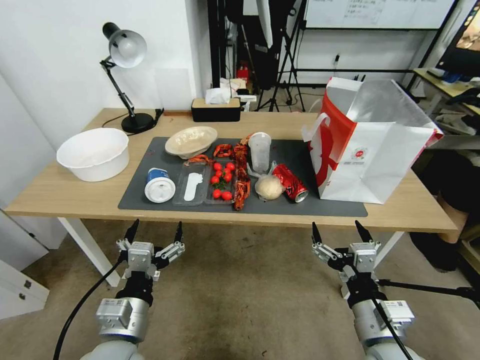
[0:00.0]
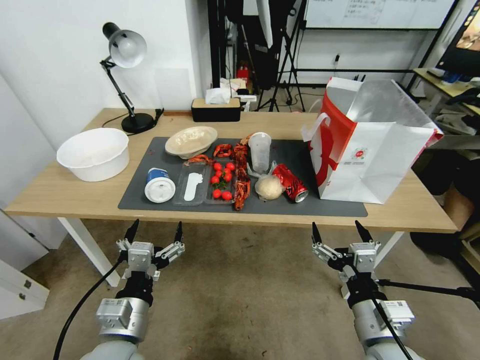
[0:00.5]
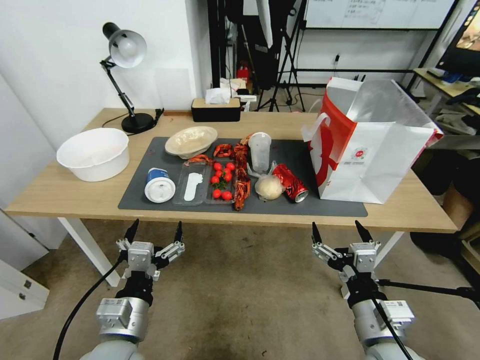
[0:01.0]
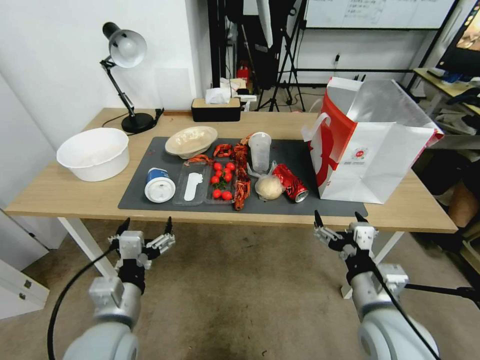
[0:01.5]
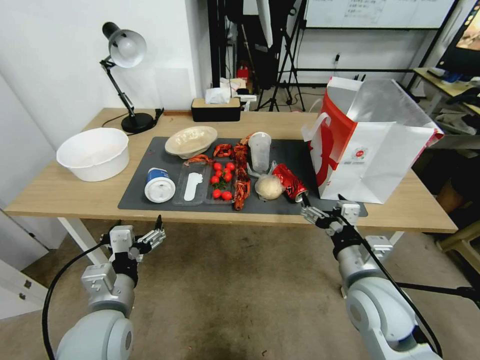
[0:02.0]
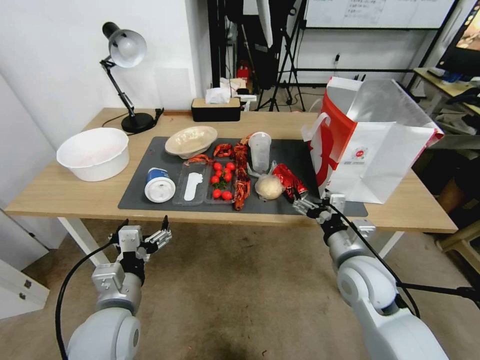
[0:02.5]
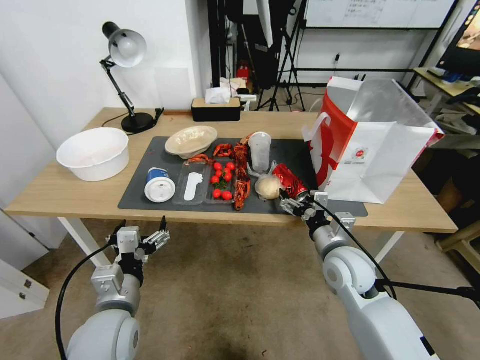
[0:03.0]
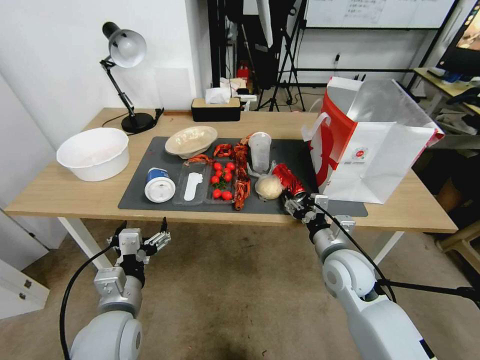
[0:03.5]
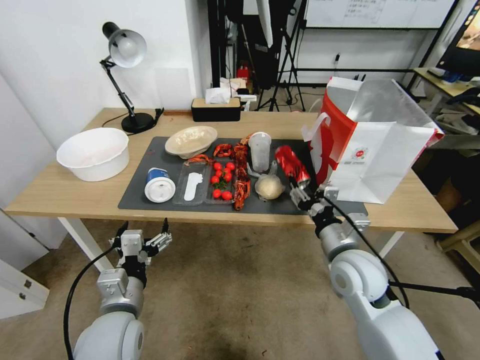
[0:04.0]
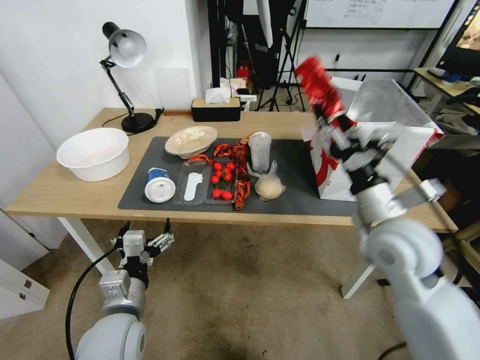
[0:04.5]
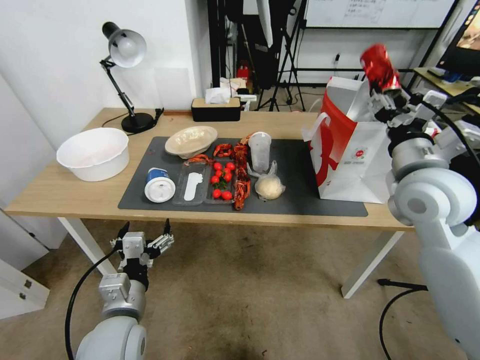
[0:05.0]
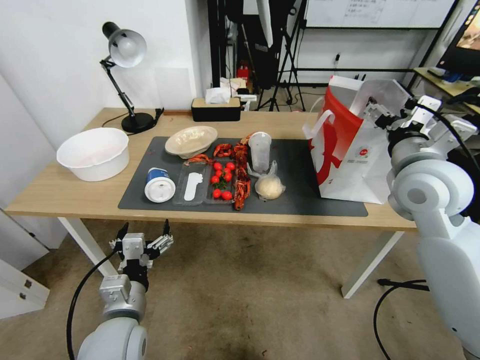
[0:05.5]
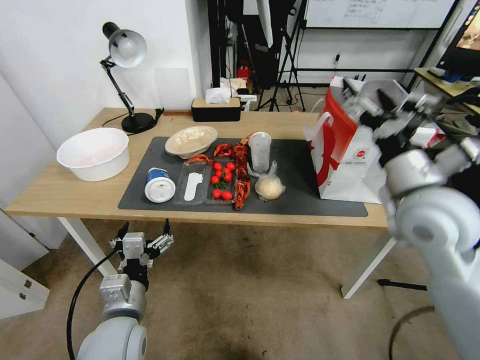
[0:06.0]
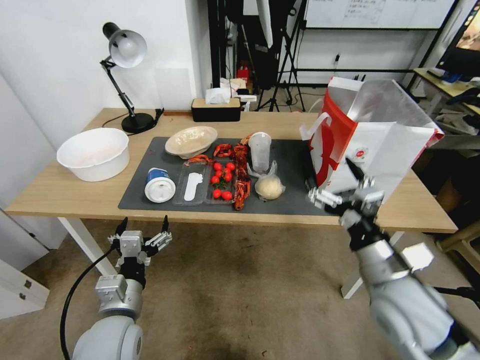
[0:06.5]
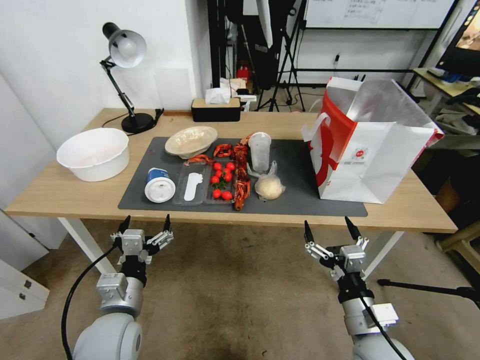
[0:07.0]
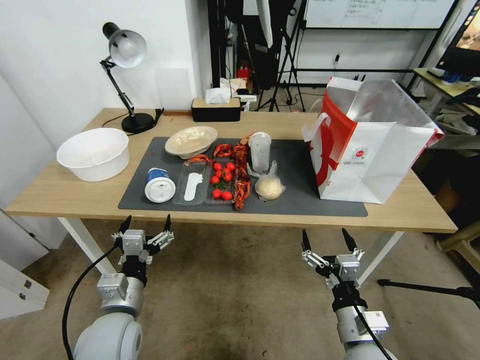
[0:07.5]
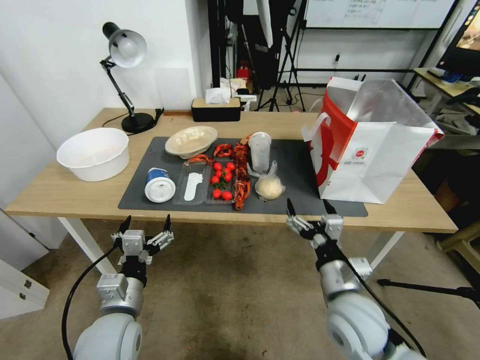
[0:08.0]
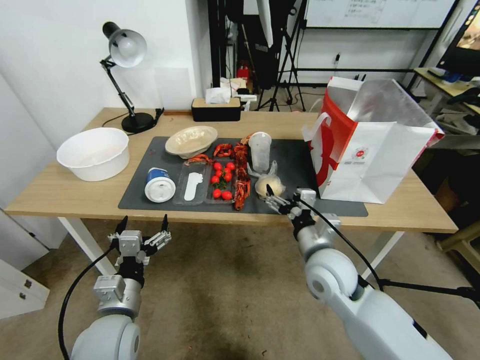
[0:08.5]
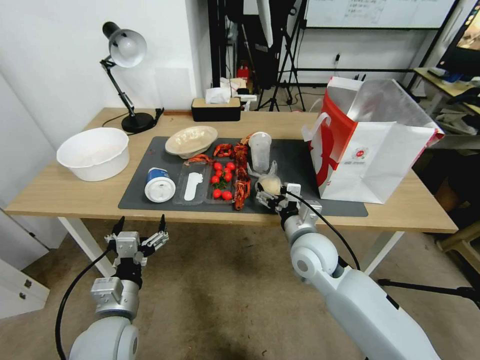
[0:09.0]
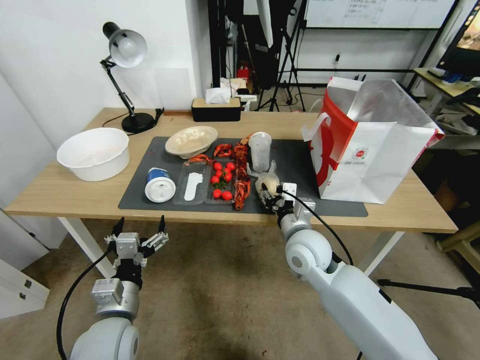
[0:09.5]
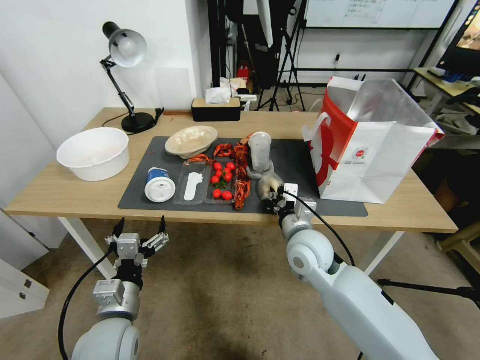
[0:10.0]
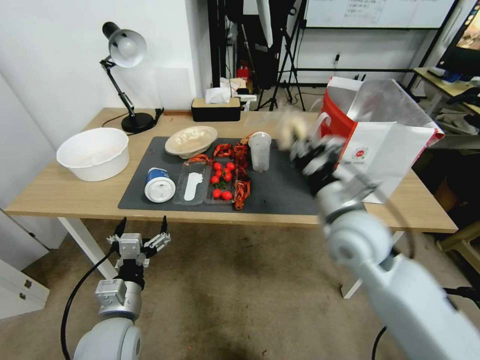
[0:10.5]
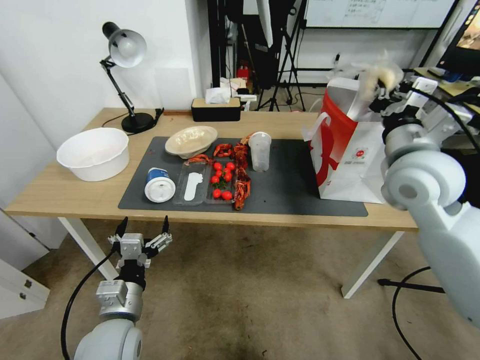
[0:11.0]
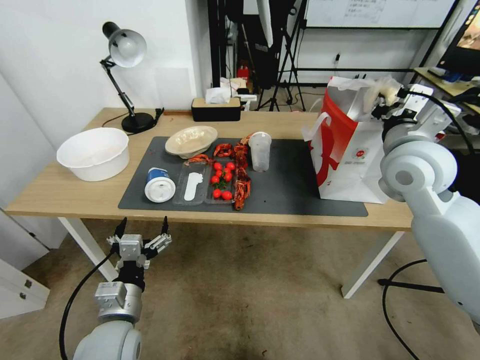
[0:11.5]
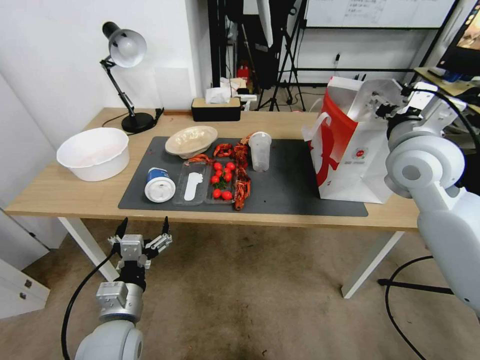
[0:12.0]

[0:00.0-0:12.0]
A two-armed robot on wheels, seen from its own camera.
0:02.0 to 0:04.0: The right gripper travels forward by roughly 5 cm, and closes its fingers.
0:04.0 to 0:06.0: The right gripper moves upward, about 15 cm, and opens.
0:06.0 to 0:08.0: The right gripper travels downward and backward by about 25 cm.
0:08.0 to 0:10.0: The right gripper is displaced forward and to the left by approximately 15 cm, and closes.
0:10.0 to 0:12.0: The right gripper moves upward and to the right, about 25 cm, and opens its fingers.

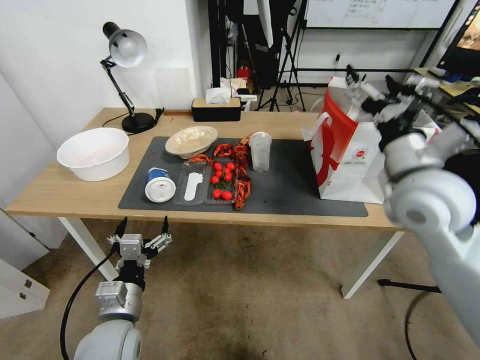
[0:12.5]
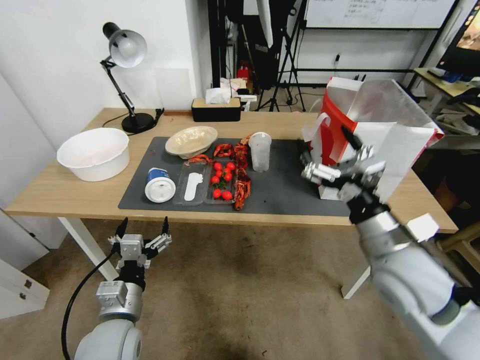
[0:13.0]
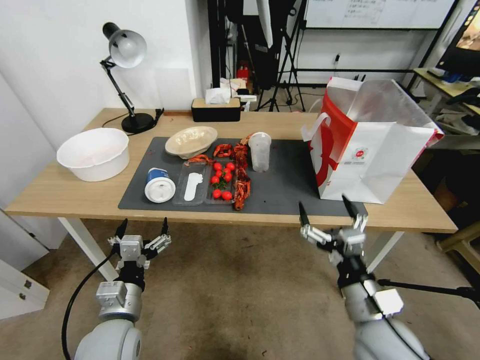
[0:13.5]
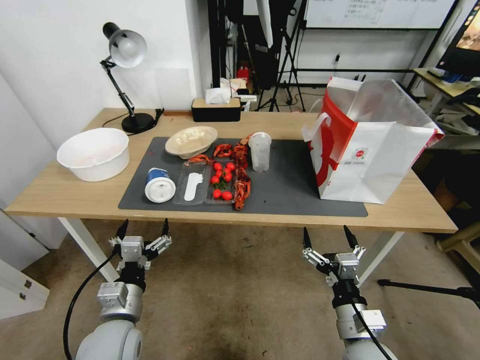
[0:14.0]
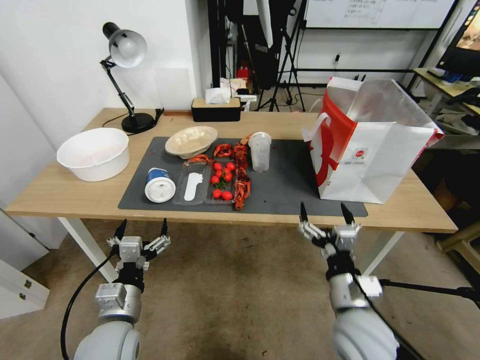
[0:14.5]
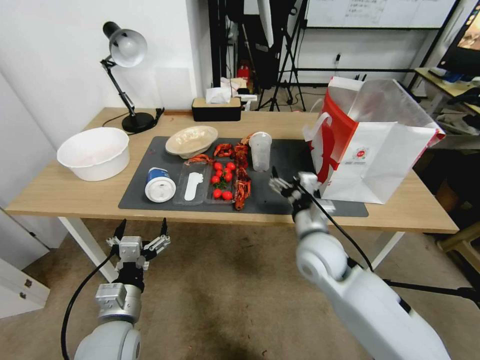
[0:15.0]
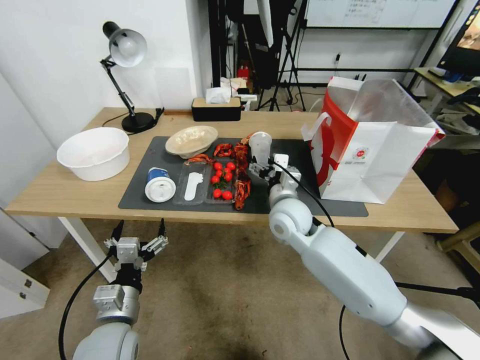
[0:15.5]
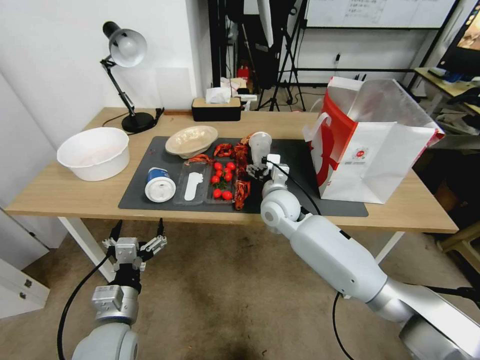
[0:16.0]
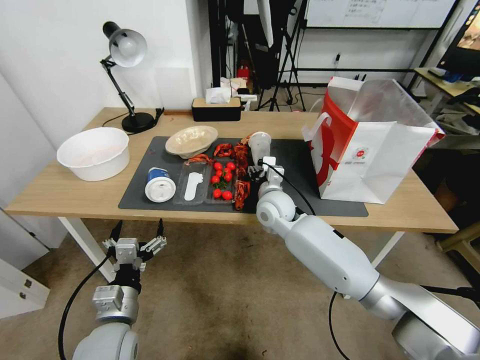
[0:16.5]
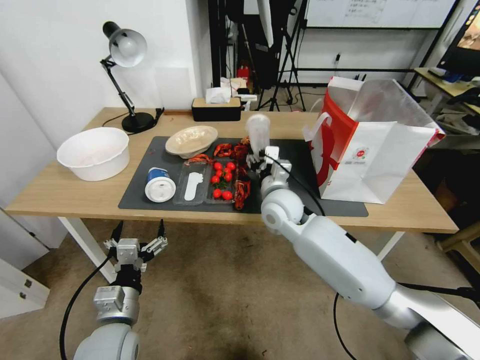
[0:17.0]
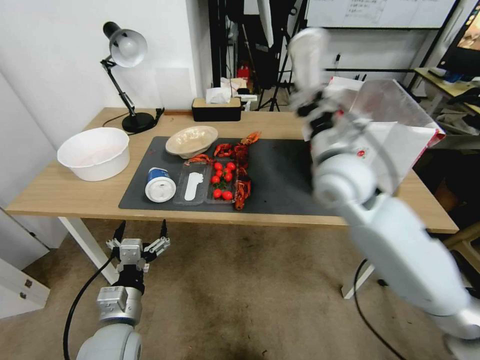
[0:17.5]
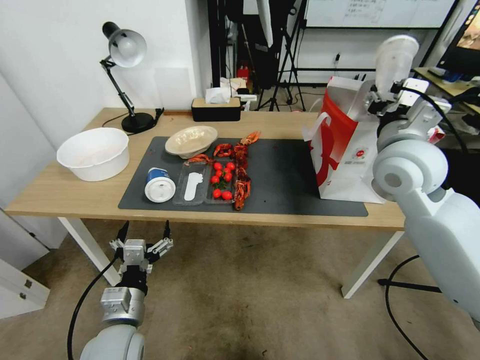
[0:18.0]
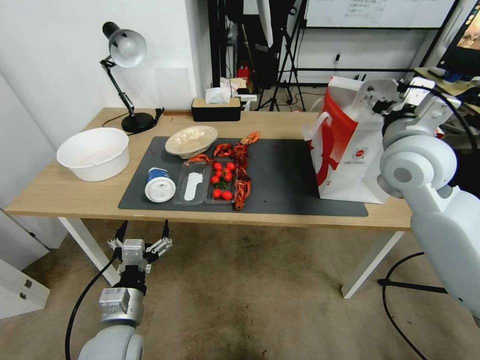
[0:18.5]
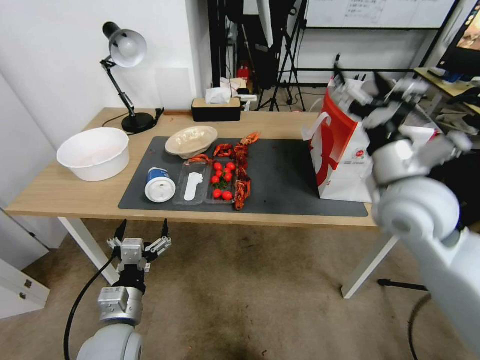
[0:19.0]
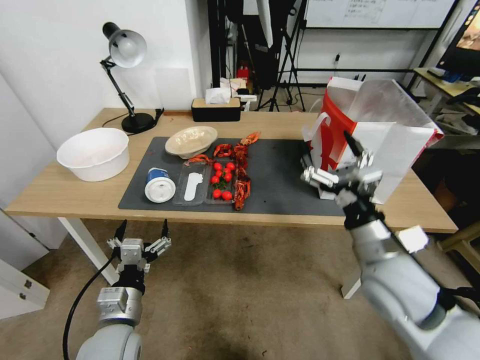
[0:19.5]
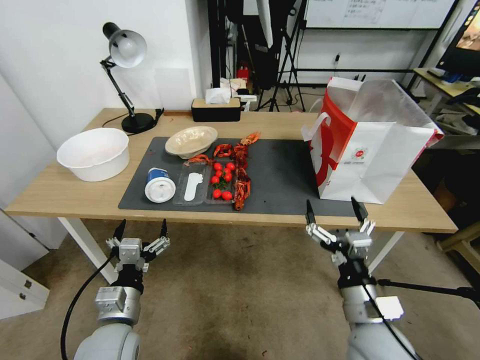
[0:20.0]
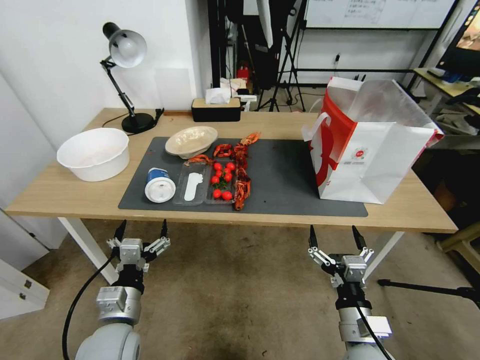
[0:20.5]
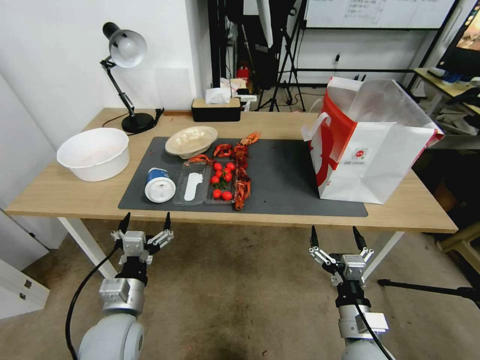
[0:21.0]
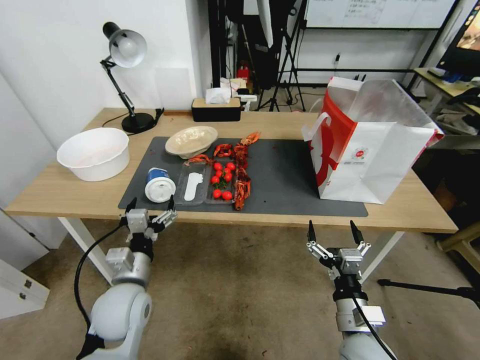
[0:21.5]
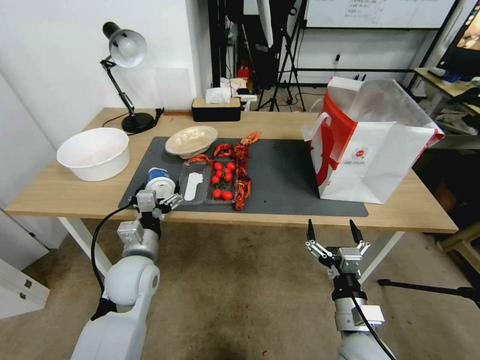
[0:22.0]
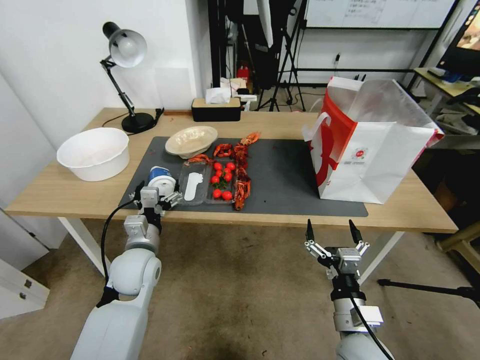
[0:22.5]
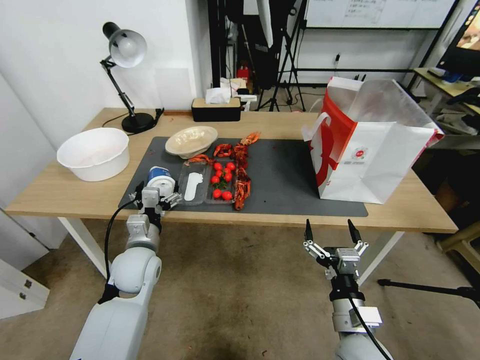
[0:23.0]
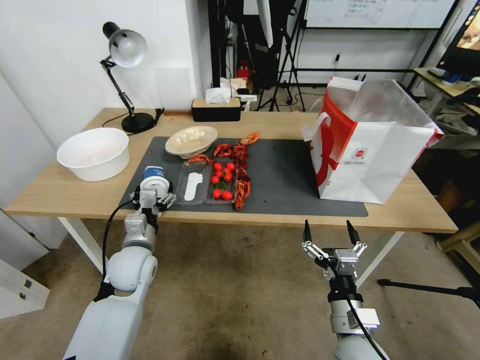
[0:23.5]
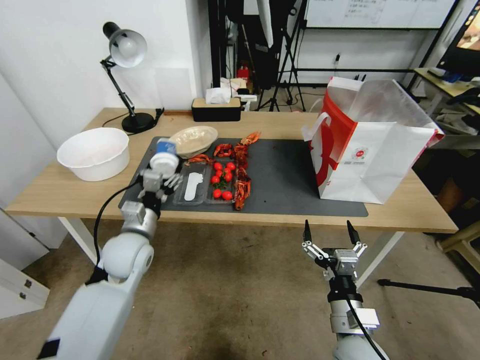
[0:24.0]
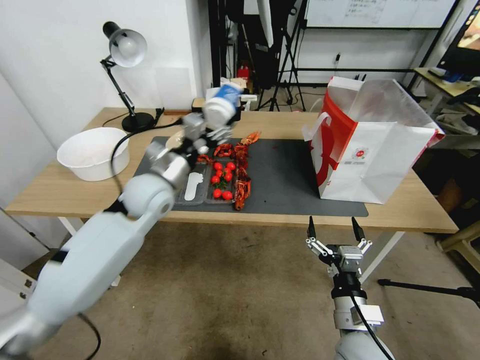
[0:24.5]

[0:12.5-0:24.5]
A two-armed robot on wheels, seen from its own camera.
0:12.5 to 0:14.5: The right gripper travels downward and backward by roughly 25 cm.
0:14.5 to 0:16.5: The right gripper moves forward and to the left, approximately 30 cm, and closes up.
0:16.5 to 0:18.5: The right gripper moves upward and to the right, approximately 30 cm, and opens.
0:18.5 to 0:20.5: The right gripper shifts approximately 35 cm downward and backward.
0:20.5 to 0:22.5: The left gripper is displaced forward by some 15 cm.
0:22.5 to 0:24.5: The left gripper is displaced upward and forward by approximately 15 cm, and closes.

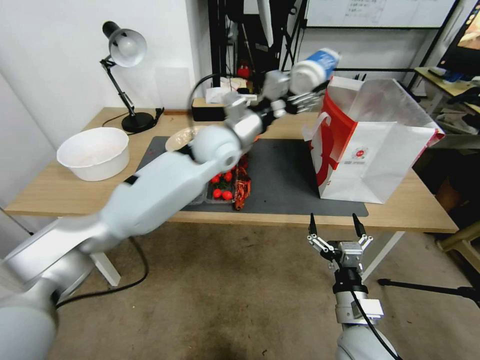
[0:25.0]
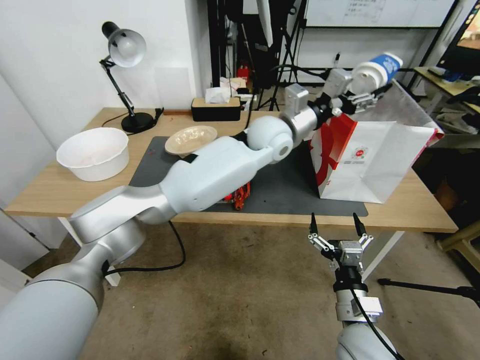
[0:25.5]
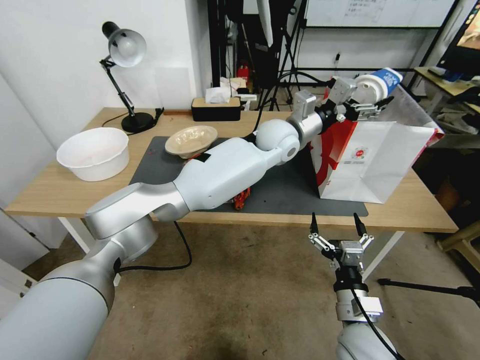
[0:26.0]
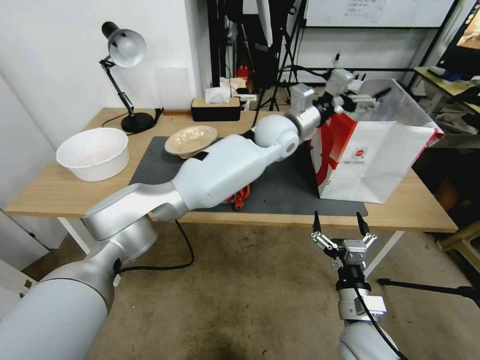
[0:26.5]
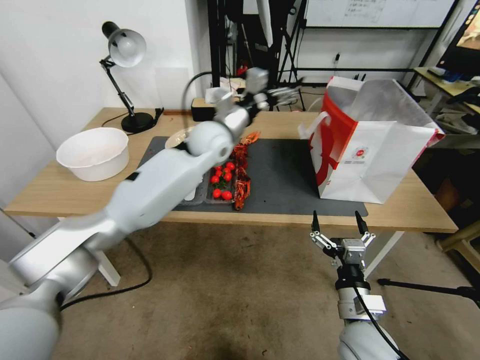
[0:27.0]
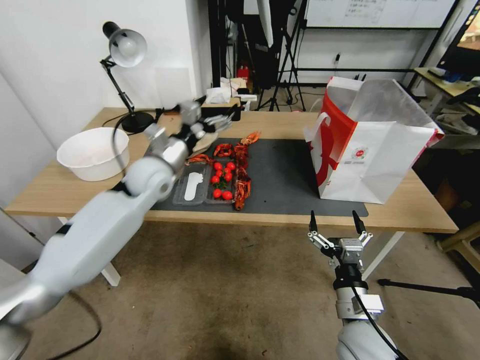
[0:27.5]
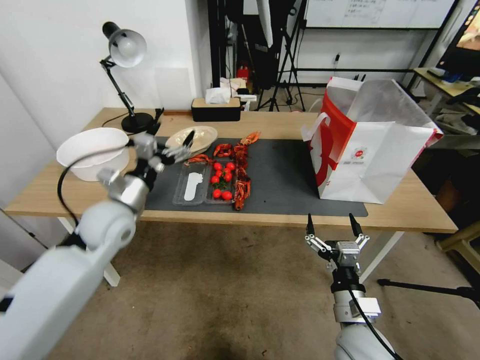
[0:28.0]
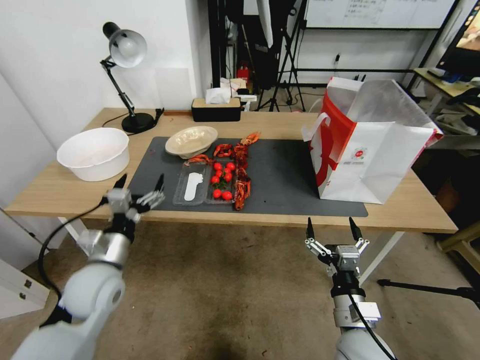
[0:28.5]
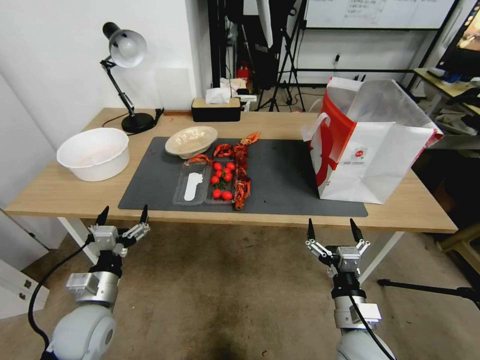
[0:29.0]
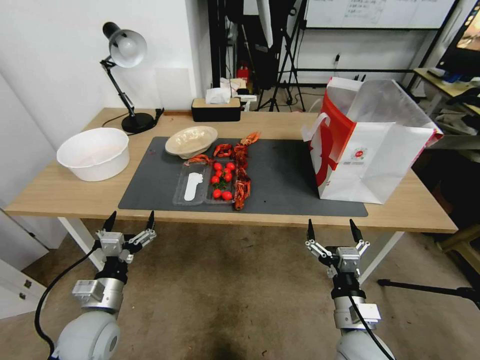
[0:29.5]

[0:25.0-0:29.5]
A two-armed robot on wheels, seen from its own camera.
0:25.0 to 0:27.0: The left gripper moves some 15 cm to the right and comes back, and opens.
0:27.0 to 0:29.5: The left gripper travels backward, downward and to the left by approximately 50 cm.
